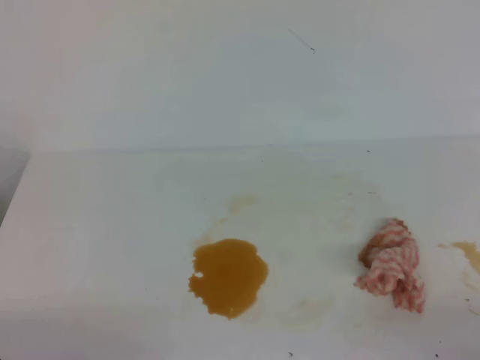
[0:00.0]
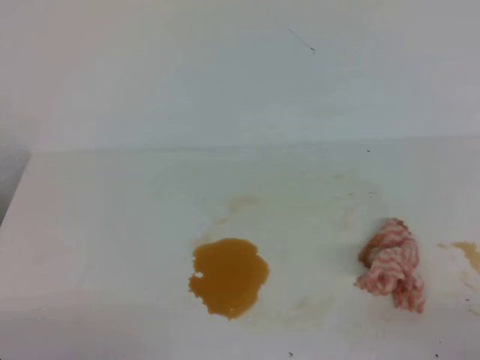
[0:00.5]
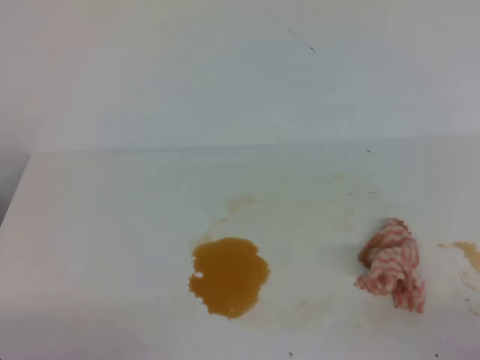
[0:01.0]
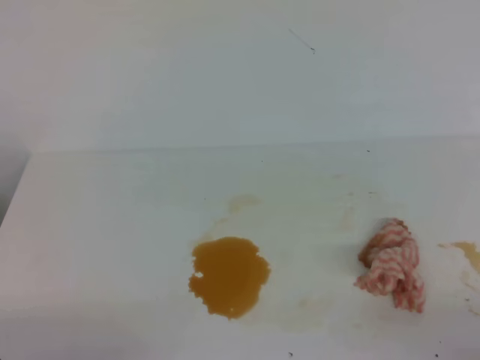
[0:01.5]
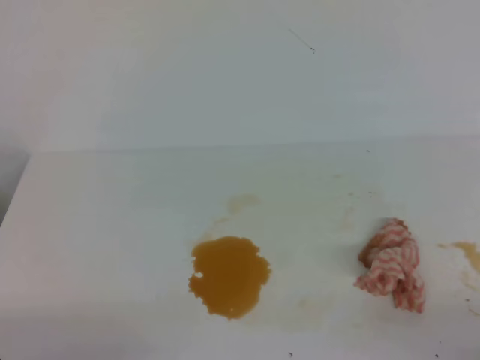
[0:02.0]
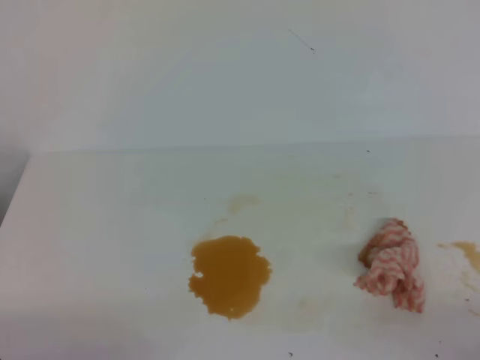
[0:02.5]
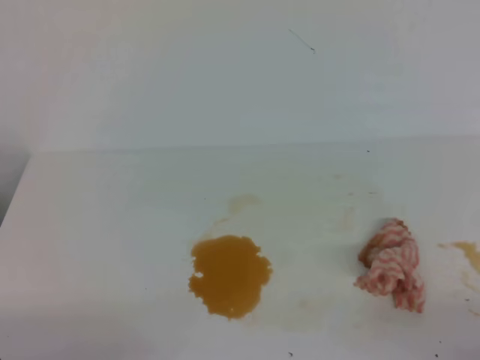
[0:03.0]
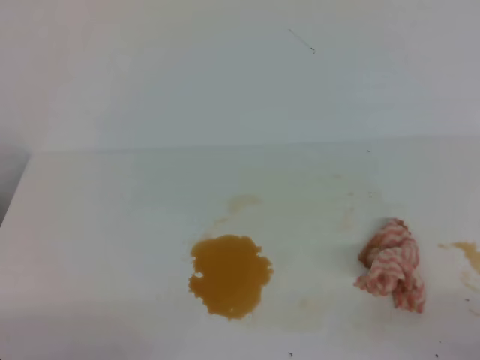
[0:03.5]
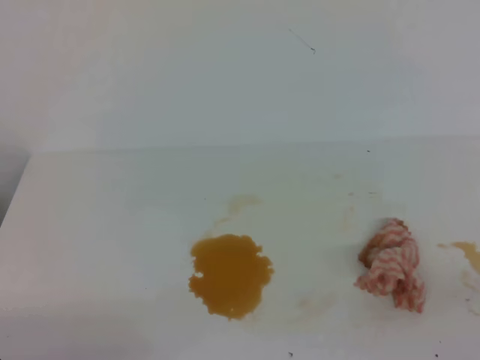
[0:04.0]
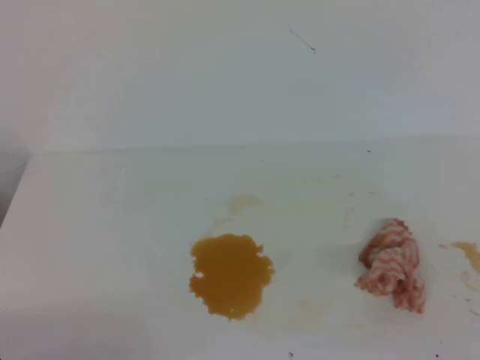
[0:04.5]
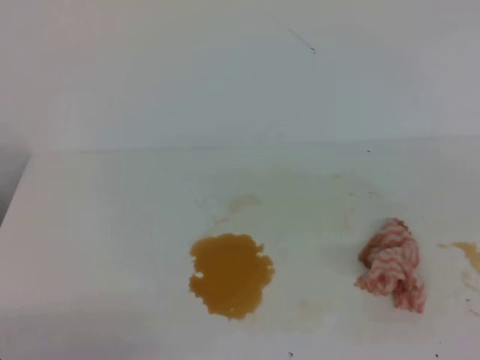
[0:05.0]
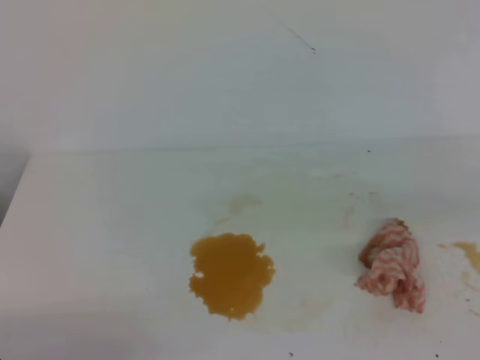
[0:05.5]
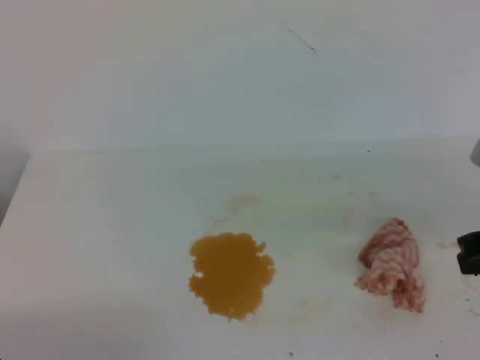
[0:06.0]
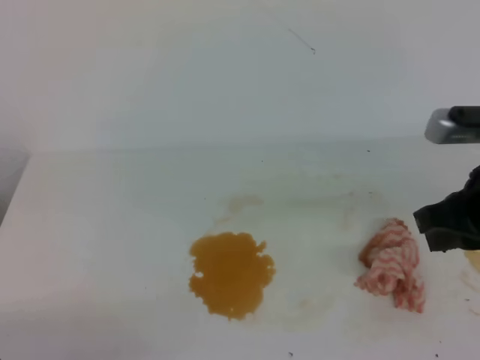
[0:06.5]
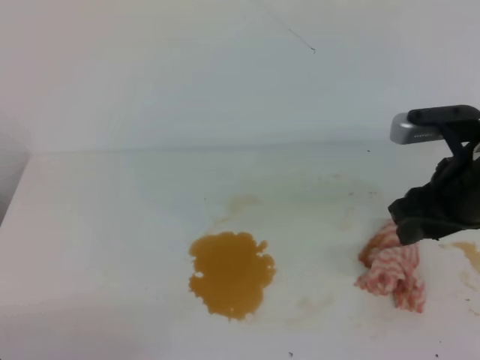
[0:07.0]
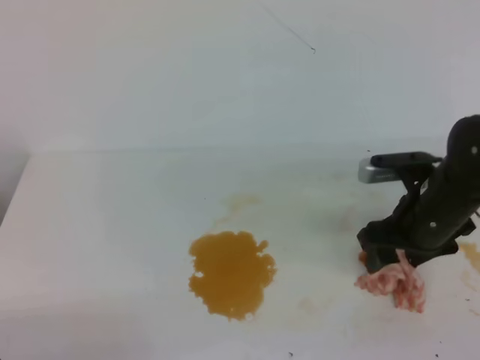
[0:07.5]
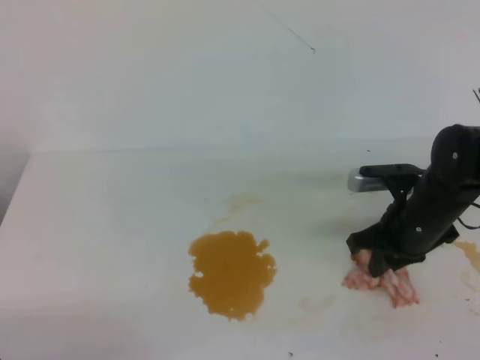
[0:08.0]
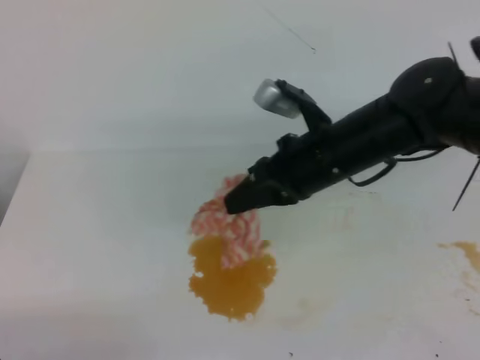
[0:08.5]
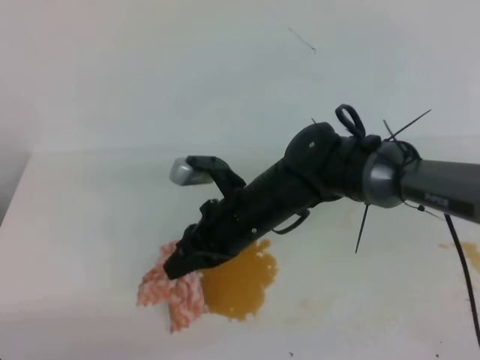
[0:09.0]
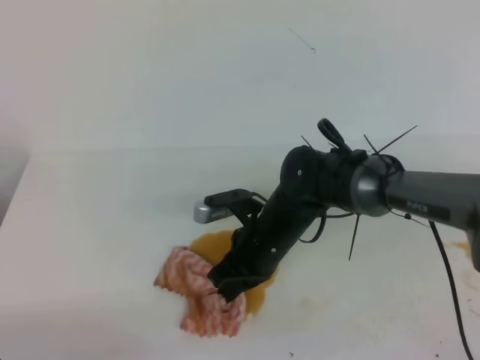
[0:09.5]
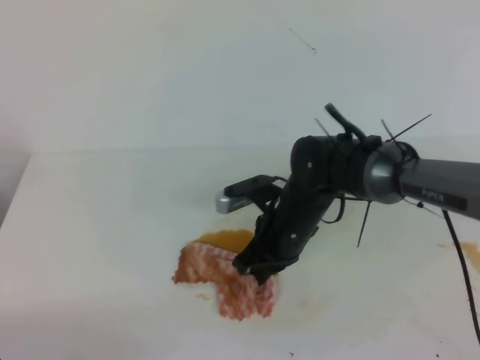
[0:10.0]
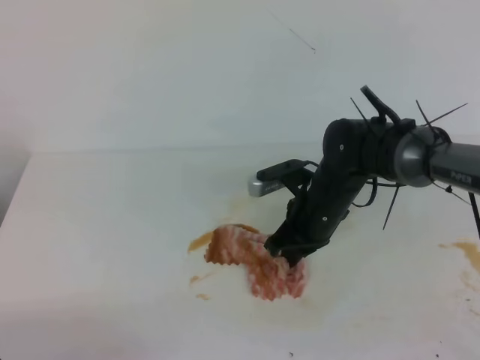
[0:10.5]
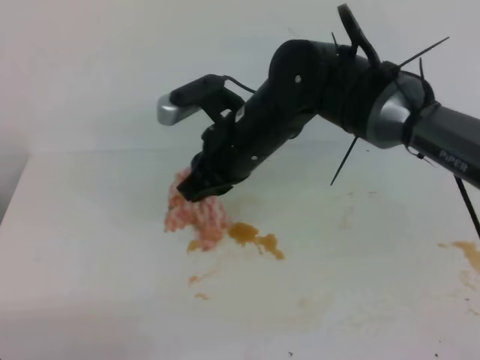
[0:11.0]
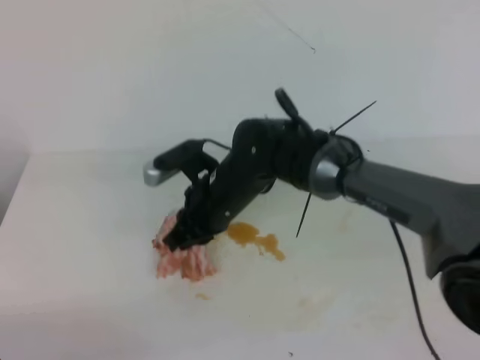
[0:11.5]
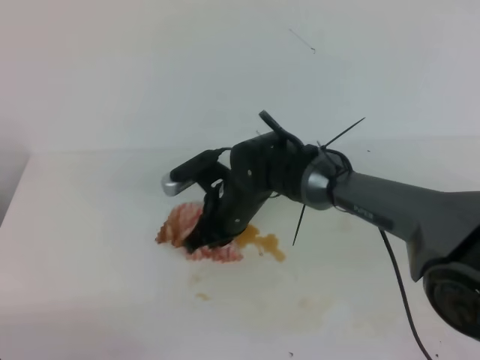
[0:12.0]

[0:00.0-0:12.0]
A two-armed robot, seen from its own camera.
0:00.0 to 0:02.0: Neither gripper changes place.
0:04.0 to 0:06.0: The right gripper is displaced forward by some 20 cm.
0:06.0 to 0:08.0: The right gripper travels forward, downward and to the left by about 20 cm, and opens, then closes once more.
0:08.0 to 0:10.0: The right gripper is displaced to the left and downward by approximately 15 cm.
0:10.0 to 0:12.0: The right gripper moves to the left, roughly 5 cm, and goes upward and returns, approximately 15 cm each way.

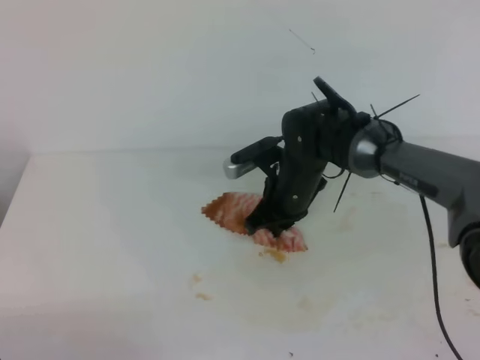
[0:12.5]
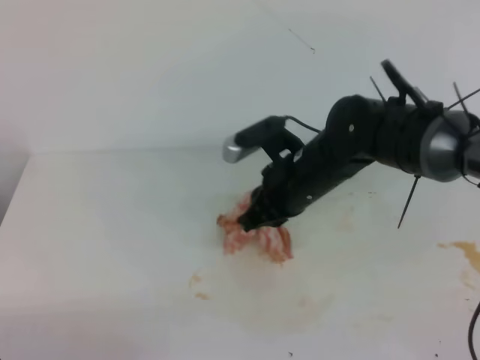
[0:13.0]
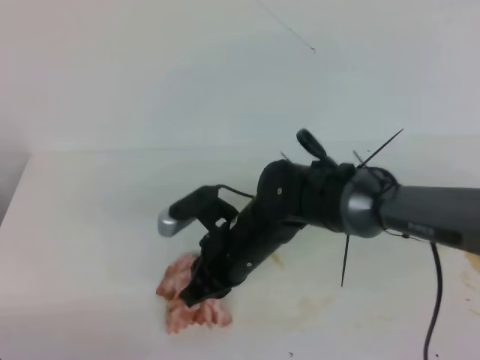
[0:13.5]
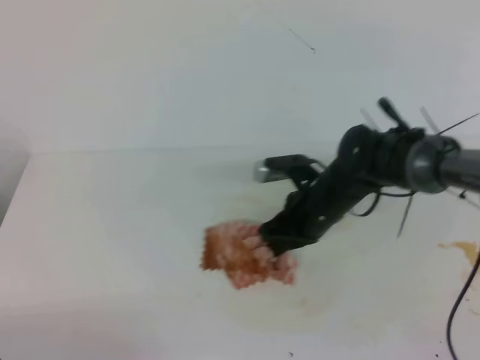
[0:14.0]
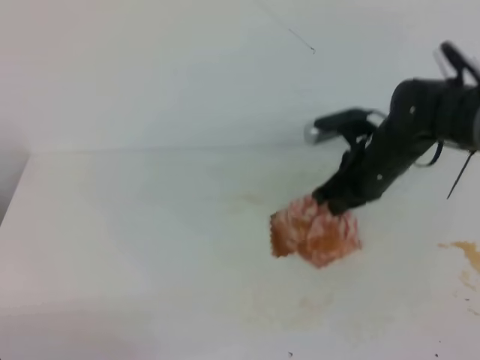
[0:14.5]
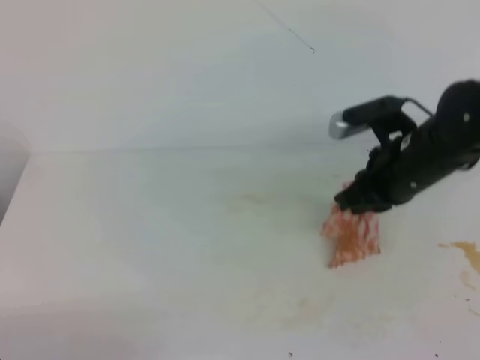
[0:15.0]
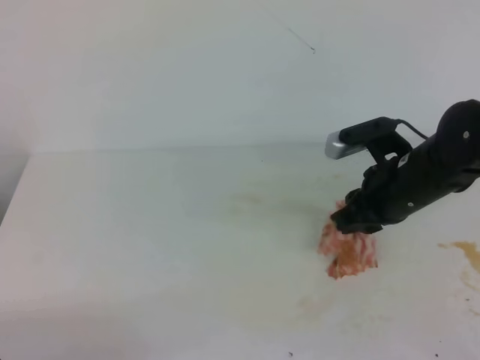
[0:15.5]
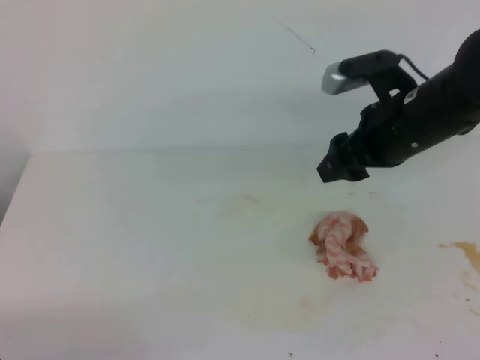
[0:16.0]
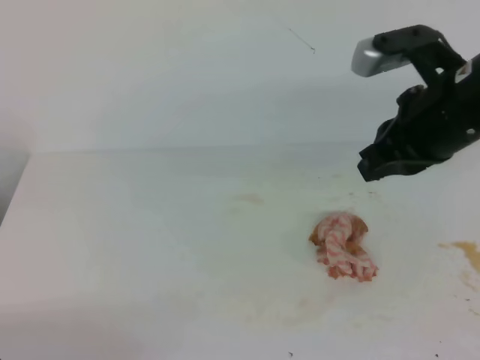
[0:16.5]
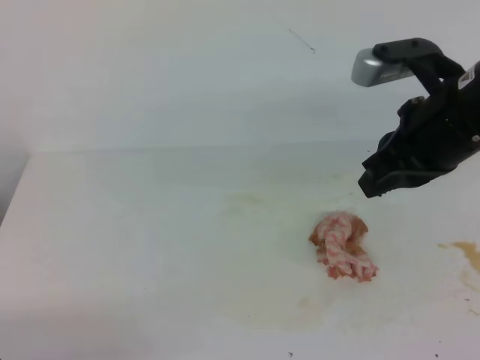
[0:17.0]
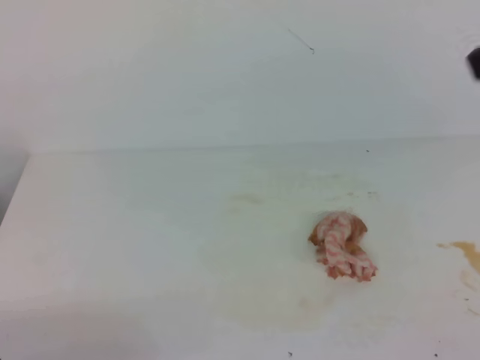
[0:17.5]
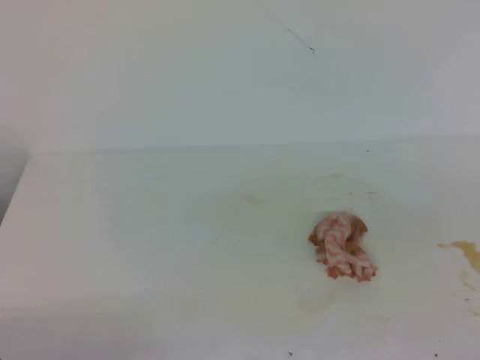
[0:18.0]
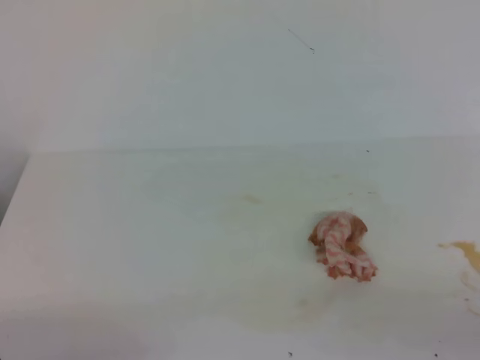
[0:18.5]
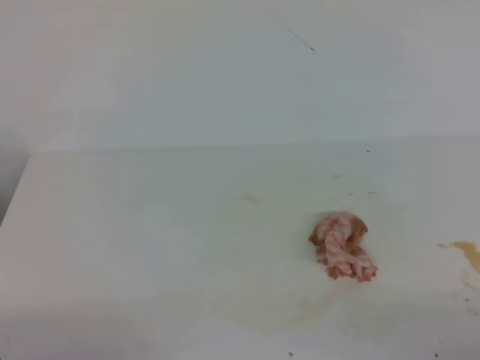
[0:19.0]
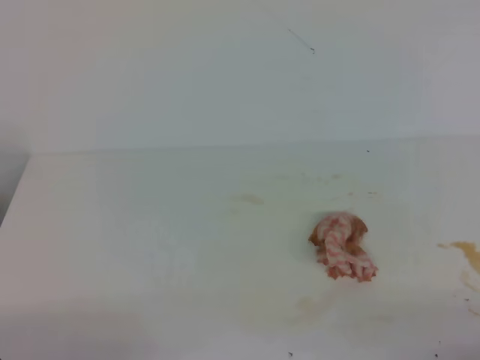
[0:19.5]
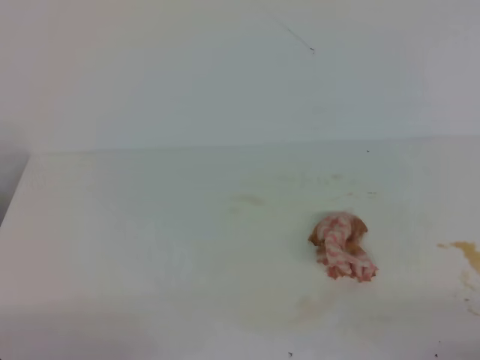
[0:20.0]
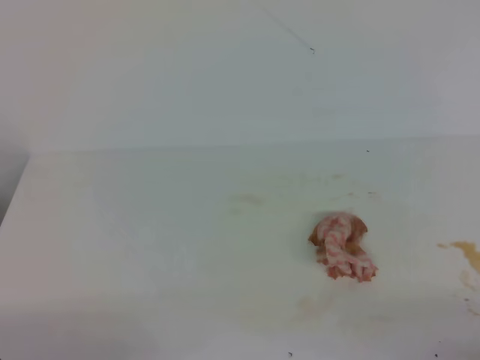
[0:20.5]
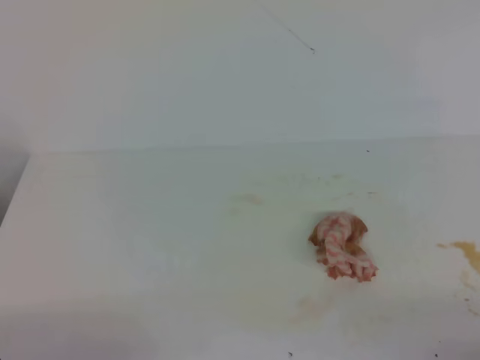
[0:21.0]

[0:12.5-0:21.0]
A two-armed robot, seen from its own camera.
0:12.5 to 0:14.5: The right gripper moves to the right and upward, roughly 10 cm.
0:14.5 to 0:16.5: The right gripper travels upward and backward by roughly 15 cm, and opens, then closes again.
0:16.5 to 0:19.0: The right gripper shifts roughly 35 cm backward, downward and to the right.
